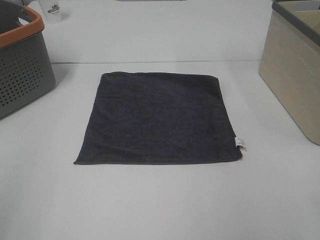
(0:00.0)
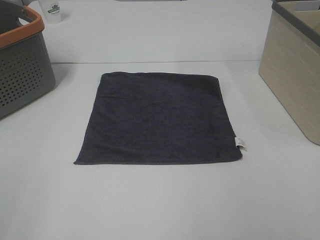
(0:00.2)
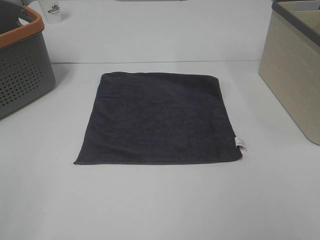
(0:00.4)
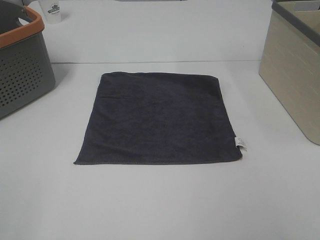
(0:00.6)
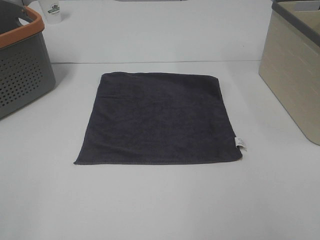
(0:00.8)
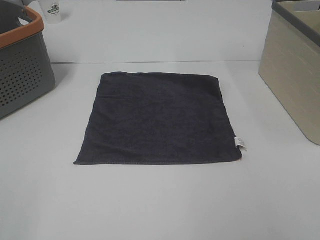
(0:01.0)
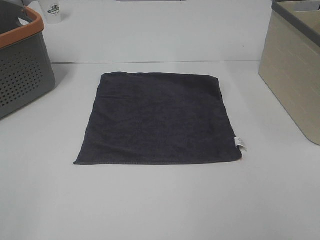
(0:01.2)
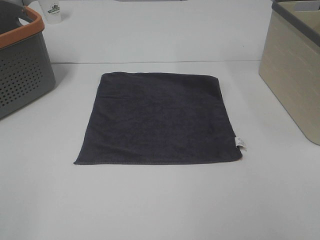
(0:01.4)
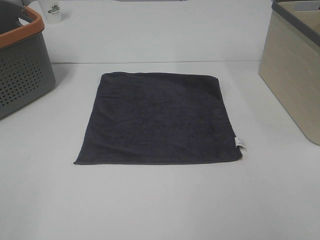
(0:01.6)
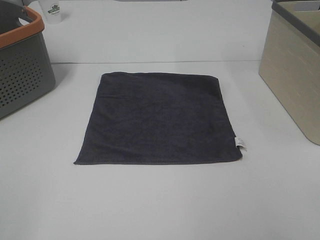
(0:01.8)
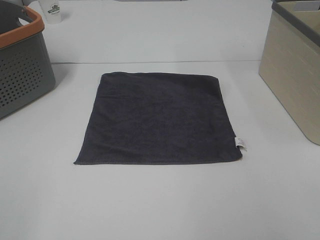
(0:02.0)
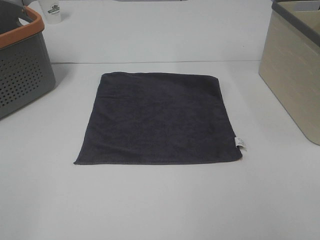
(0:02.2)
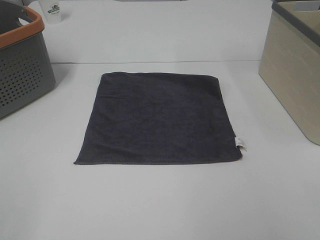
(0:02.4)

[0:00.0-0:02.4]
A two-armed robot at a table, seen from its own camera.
Task of the whole recording: Remove the towel and place it.
0:01.2 to 0:02.4: Both grippers stay put.

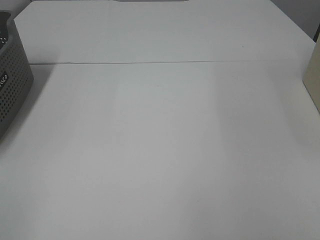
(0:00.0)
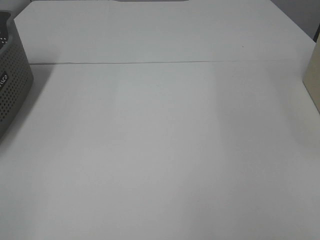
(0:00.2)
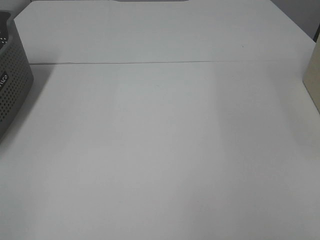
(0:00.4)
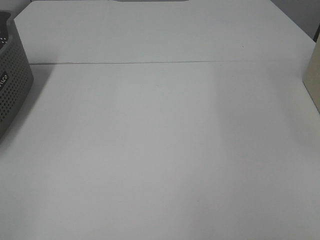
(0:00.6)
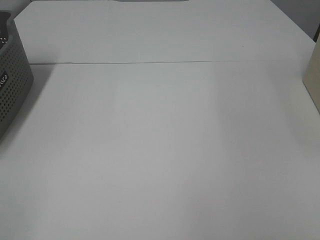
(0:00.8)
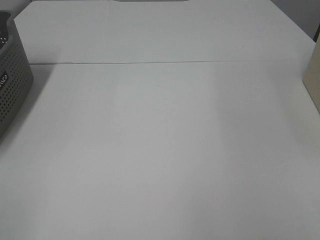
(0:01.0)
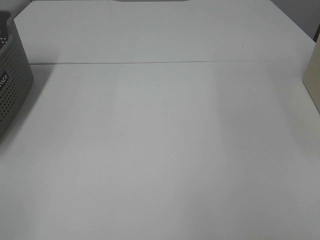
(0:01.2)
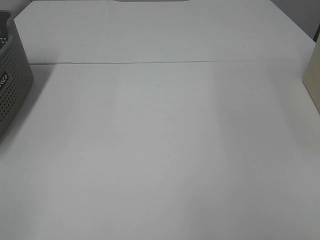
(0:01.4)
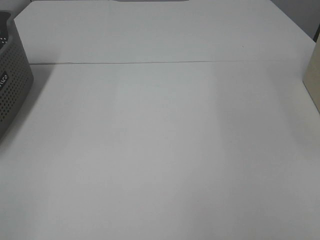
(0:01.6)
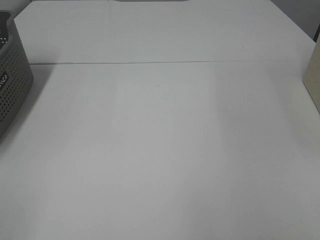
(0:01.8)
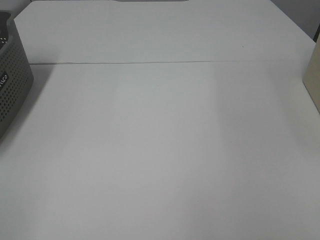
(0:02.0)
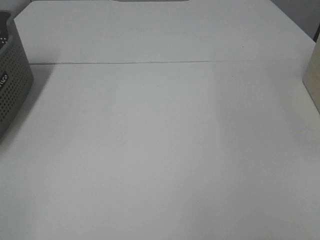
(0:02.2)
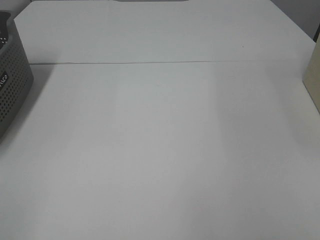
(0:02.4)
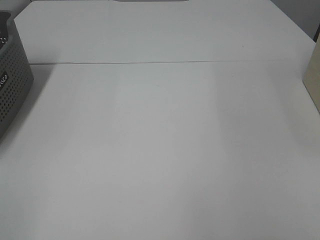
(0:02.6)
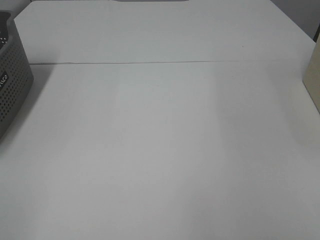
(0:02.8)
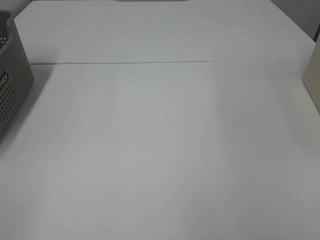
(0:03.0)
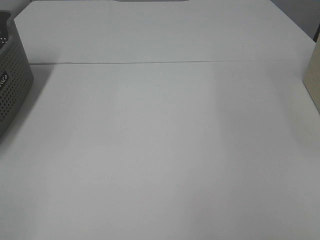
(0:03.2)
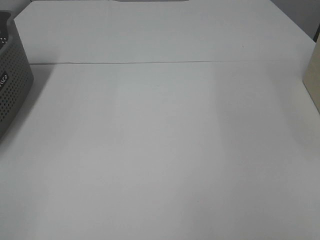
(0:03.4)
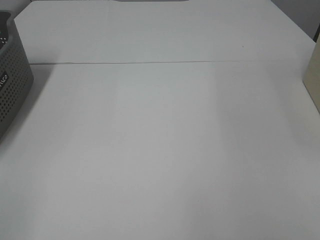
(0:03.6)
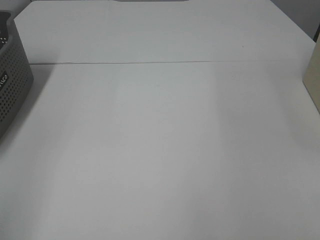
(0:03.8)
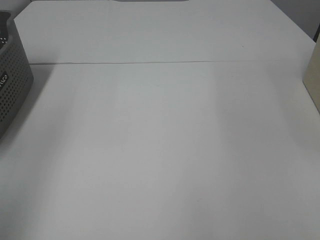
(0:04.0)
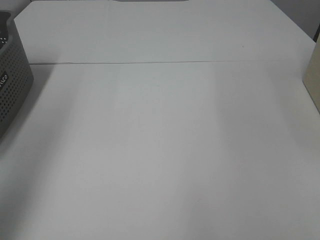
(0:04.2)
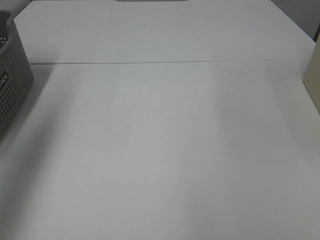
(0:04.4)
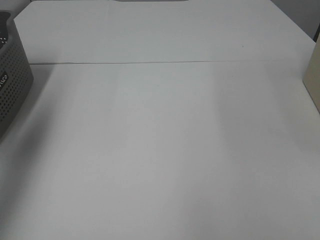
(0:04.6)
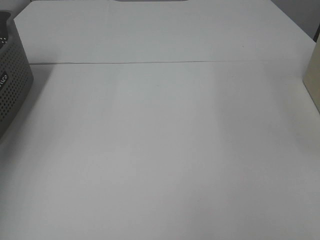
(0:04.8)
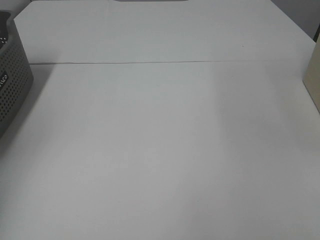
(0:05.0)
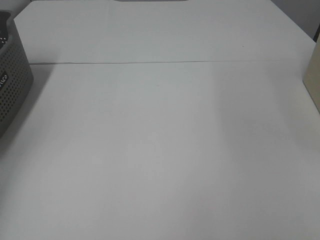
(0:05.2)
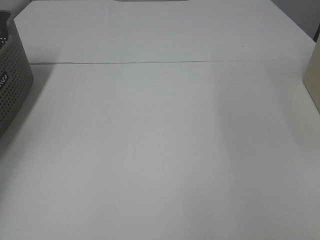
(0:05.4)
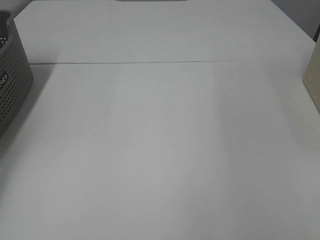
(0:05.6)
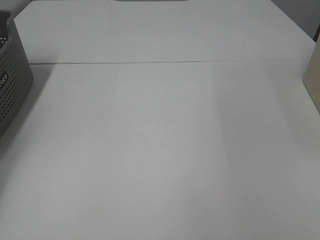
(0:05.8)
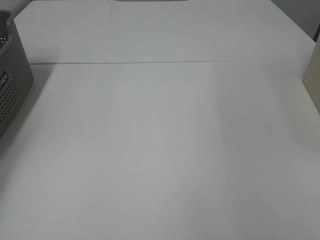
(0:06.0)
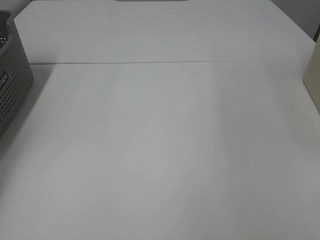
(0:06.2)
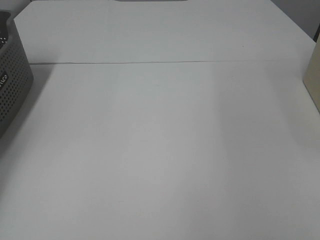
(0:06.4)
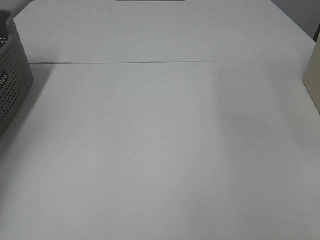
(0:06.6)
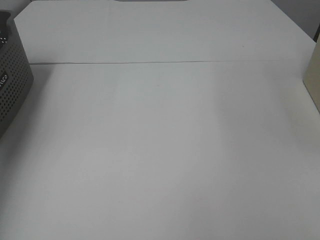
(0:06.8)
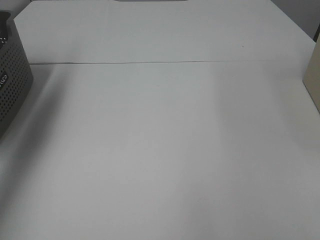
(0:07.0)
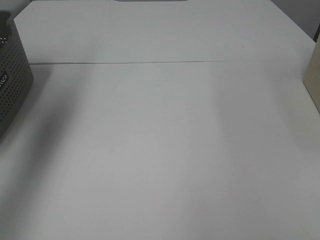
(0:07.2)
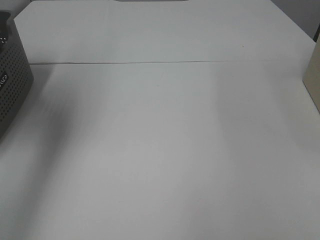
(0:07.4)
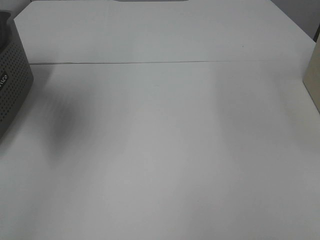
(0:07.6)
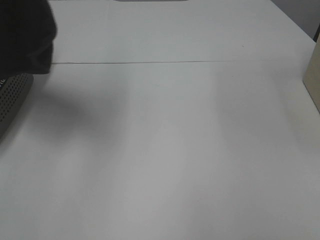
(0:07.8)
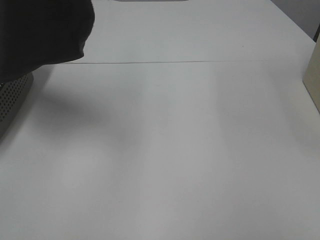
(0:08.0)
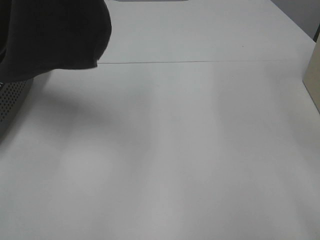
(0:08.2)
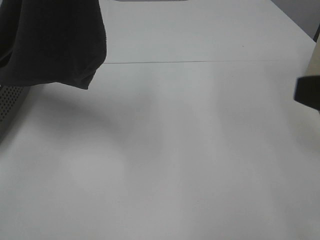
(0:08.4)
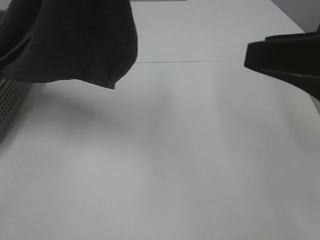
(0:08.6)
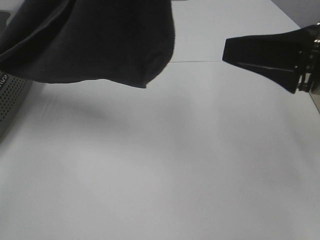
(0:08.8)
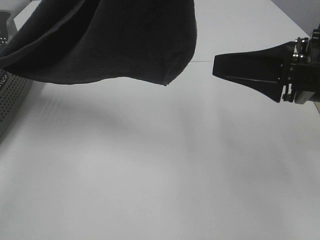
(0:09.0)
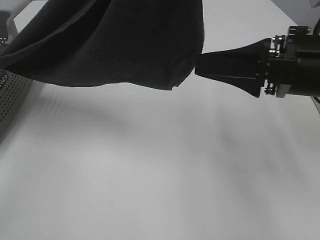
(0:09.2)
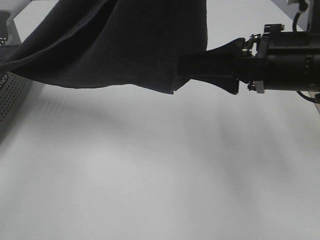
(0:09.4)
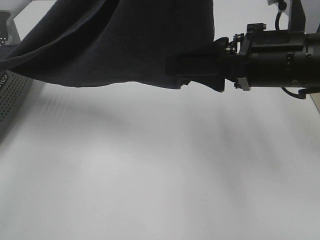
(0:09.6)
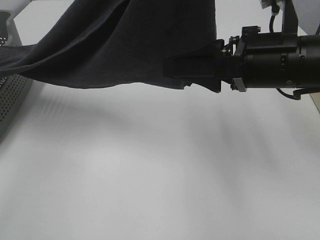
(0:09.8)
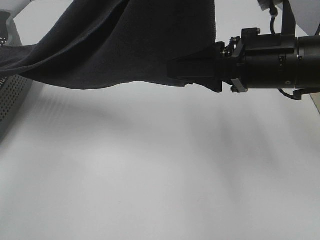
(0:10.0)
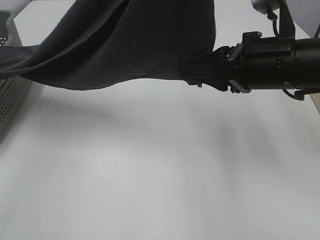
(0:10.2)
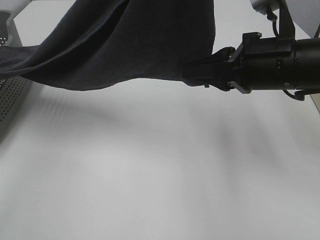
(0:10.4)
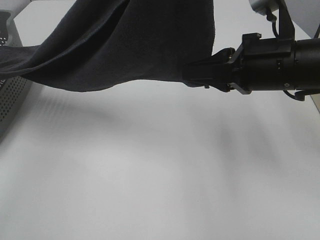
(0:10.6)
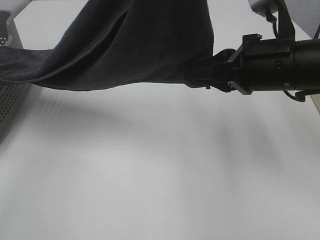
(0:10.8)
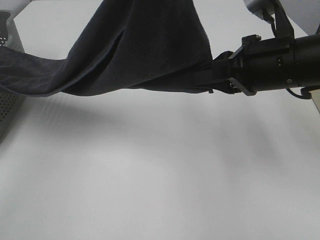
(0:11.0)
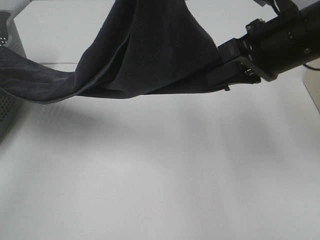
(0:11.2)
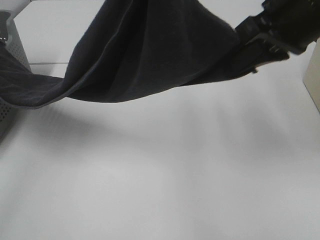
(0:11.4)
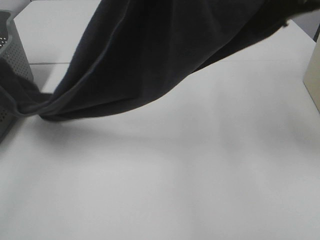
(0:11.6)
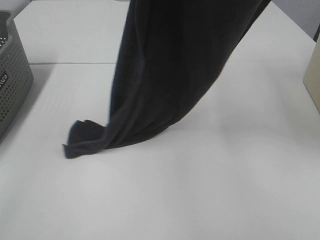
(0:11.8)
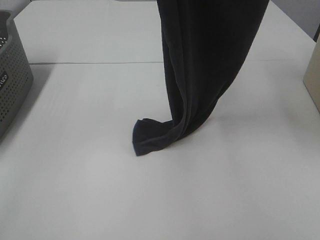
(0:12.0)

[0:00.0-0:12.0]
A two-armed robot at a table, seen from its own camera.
Task of the whole recording: Remove the towel and place it.
Step, 0:07.2 to 0:10.8: Right hand: grab a corner of the grey towel and straighten it.
0:00.0 to 0:03.0: The two grippers keep their place.
0:03.0 to 0:04.4: The left gripper is displaced forward and upward by roughly 25 cm.
0:04.4 to 0:06.0: The left gripper shifts roughly 30 cm downward, forward and to the left, and closes.
0:06.0 to 0:07.6: The left gripper travels upward, to the right and backward by approximately 40 cm.
0:07.6 to 0:09.0: The left gripper moves to the right, some 20 cm, while the right gripper moves forward and to the left, approximately 20 cm.
0:09.0 to 0:10.4: The right gripper travels forward by some 5 cm, and closes its fingers.
0:10.4 to 0:12.0: The right gripper travels upward by roughly 25 cm.

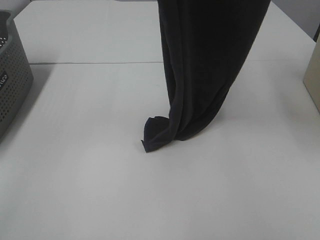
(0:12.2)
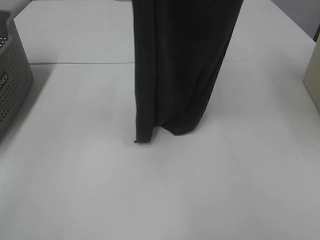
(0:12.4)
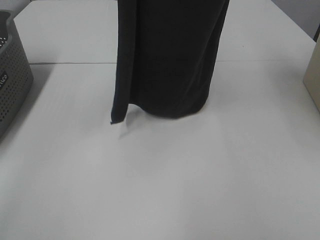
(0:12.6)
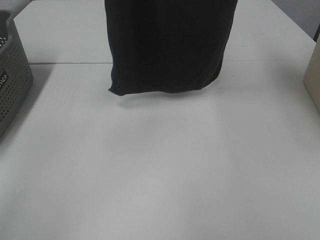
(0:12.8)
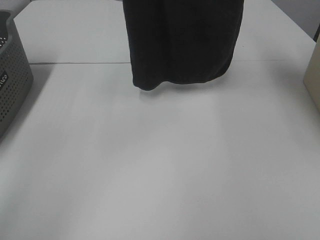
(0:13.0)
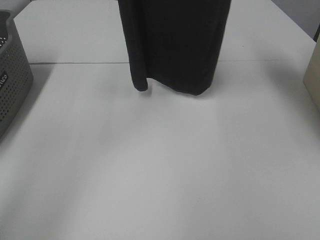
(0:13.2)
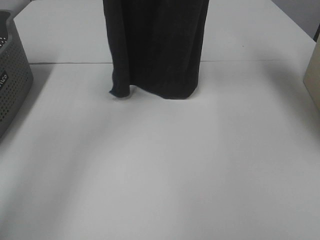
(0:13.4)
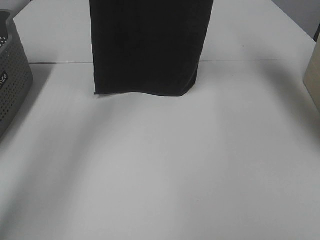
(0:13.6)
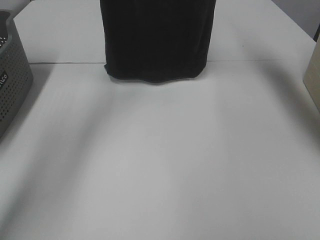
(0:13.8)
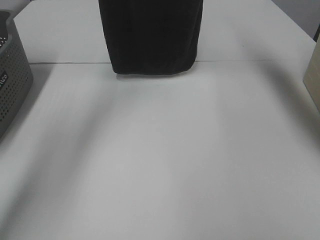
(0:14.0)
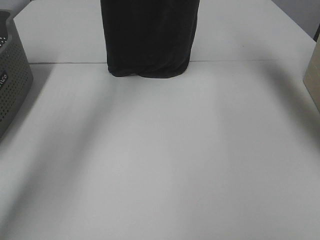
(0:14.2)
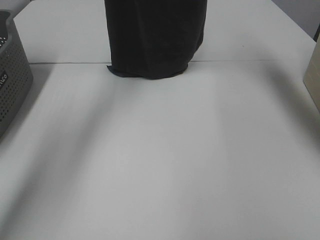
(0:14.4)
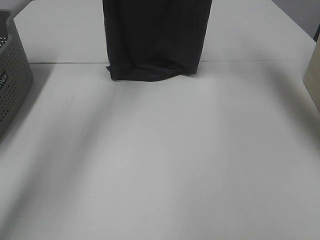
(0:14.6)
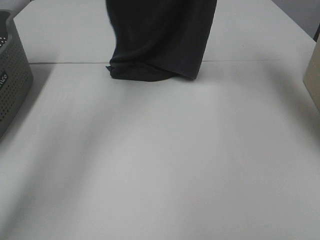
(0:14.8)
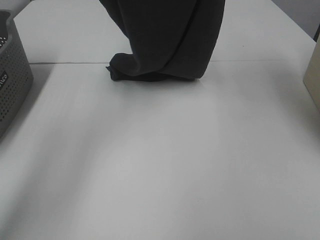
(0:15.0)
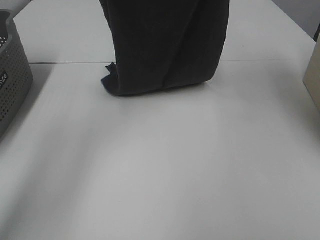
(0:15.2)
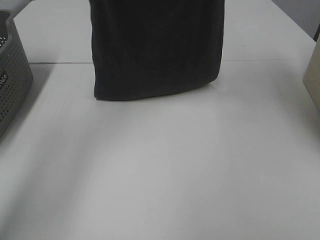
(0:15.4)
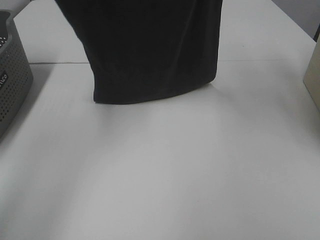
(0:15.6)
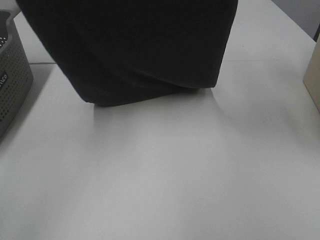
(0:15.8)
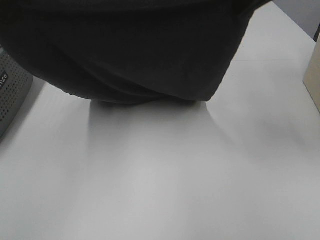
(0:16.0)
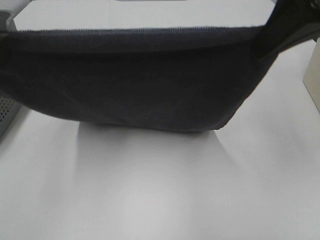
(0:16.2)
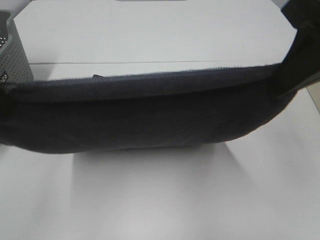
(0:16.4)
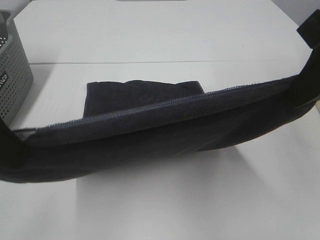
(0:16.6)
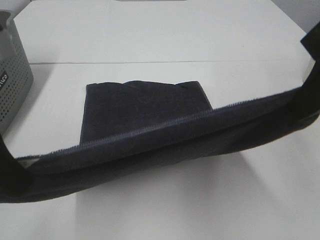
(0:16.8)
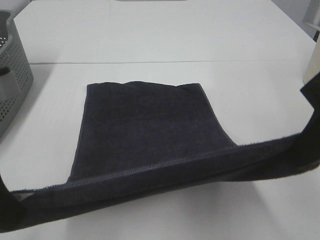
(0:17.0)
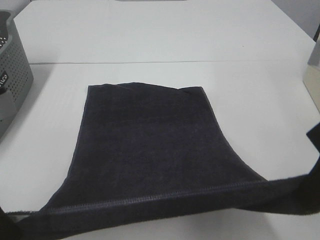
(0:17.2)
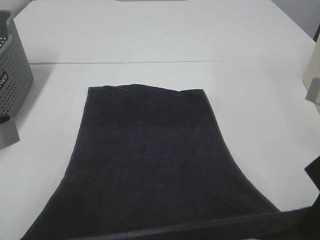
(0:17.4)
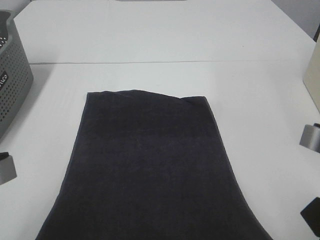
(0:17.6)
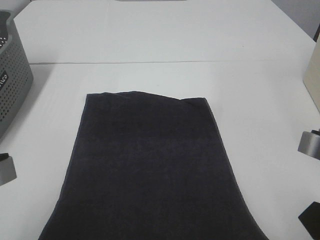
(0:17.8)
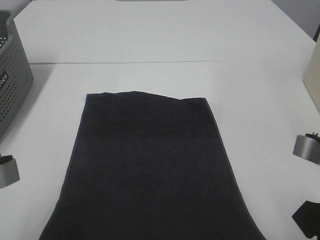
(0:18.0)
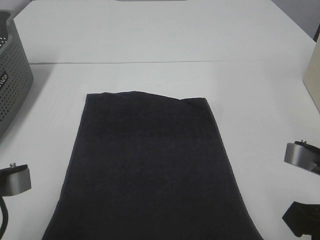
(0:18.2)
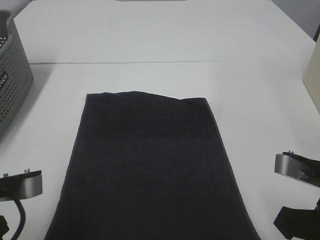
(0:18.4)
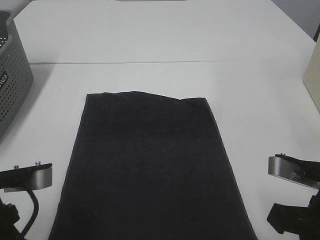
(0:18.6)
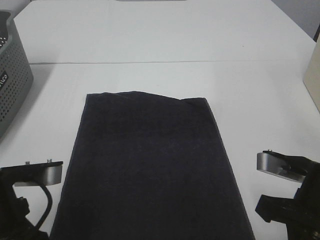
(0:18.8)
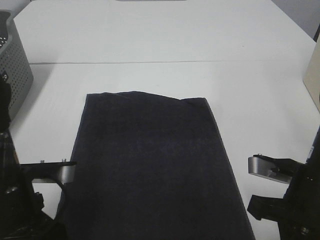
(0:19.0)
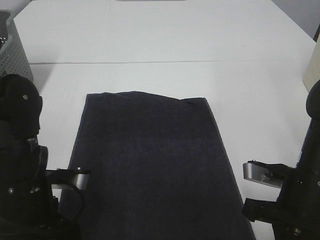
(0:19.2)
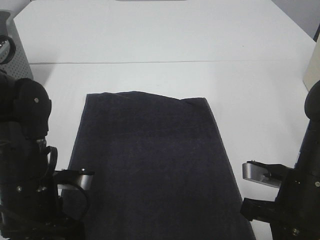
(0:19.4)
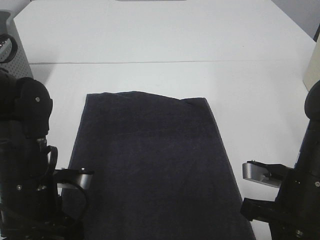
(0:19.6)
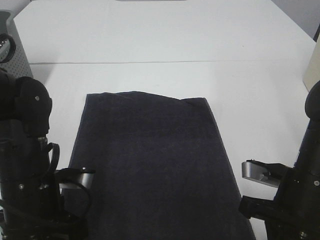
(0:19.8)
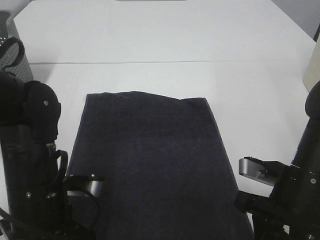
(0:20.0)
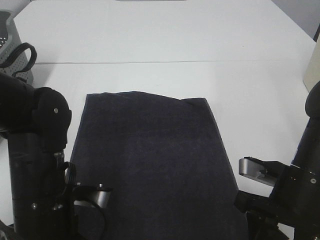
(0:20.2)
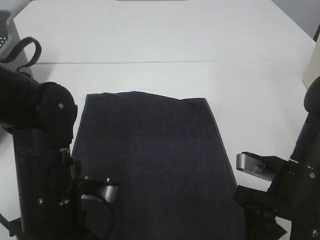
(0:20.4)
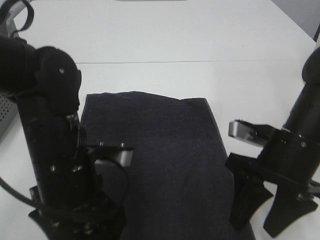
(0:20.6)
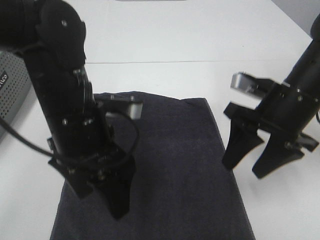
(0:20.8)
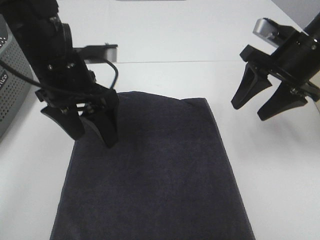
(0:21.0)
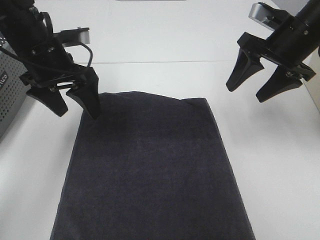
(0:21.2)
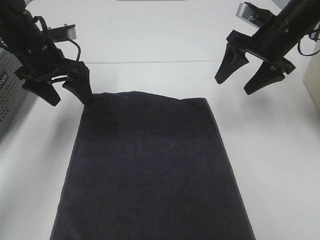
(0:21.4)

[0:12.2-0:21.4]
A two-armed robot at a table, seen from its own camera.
Task of the whole recording: Remove the towel and place it.
Step, 0:12.2 to 0:16.0: Left hand: spread the grey towel flat on the table.
Step, 0:12.2 to 0:16.0: Right hand: spread the grey towel flat on the table.
0:12.2 to 0:13.8: The right gripper heads forward, covering some 15 cm; the left gripper heads forward and to the left, covering roughly 20 cm.
0:13.8 to 0:15.2: The right gripper heads downward and backward, covering roughly 10 cm; the left gripper travels downward by about 5 cm.
0:15.2 to 0:16.8: The two grippers go roughly 30 cm backward and downward.
0:16.8 to 0:18.4: Both grippers travel together downward, about 15 cm.
0:18.4 to 0:19.8: The right gripper travels downward and forward by about 10 cm, while the left gripper is displaced forward and downward by approximately 10 cm.
0:19.8 to 0:21.4: The grippers both shift forward by about 25 cm. The right gripper opens up. Meanwhile the left gripper opens its fingers.
